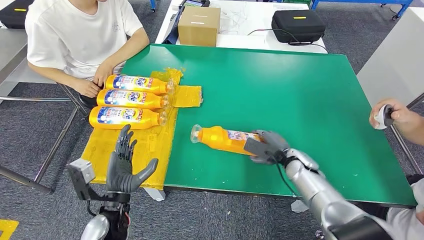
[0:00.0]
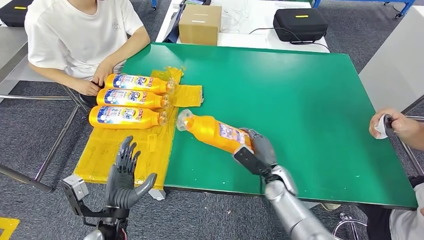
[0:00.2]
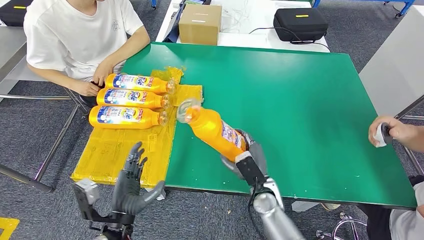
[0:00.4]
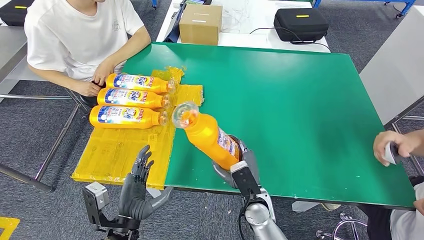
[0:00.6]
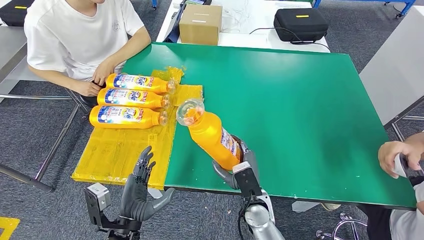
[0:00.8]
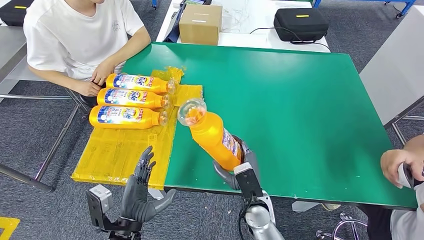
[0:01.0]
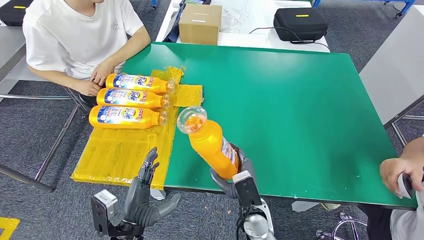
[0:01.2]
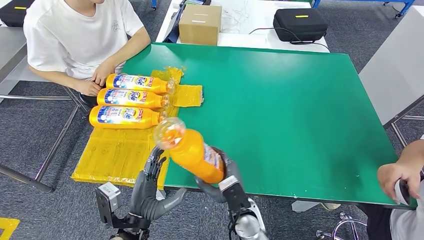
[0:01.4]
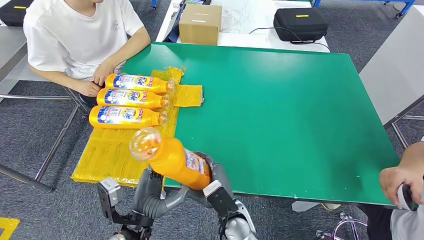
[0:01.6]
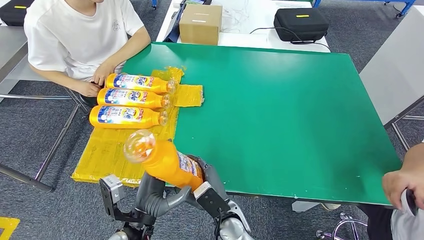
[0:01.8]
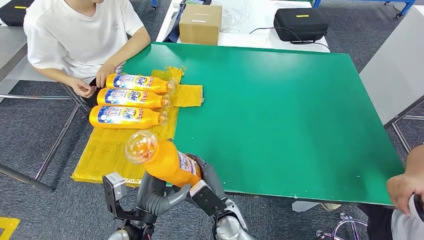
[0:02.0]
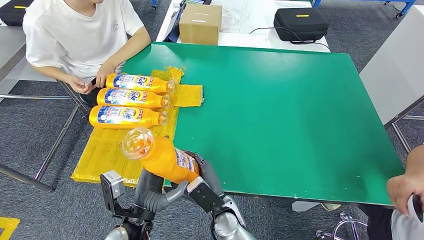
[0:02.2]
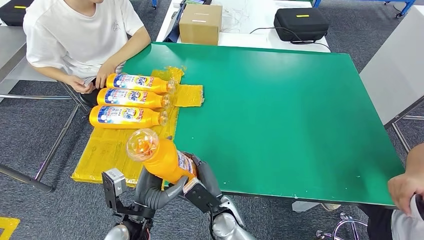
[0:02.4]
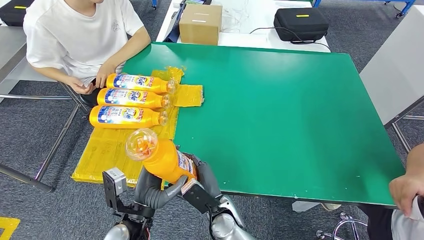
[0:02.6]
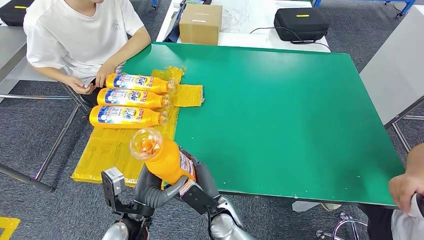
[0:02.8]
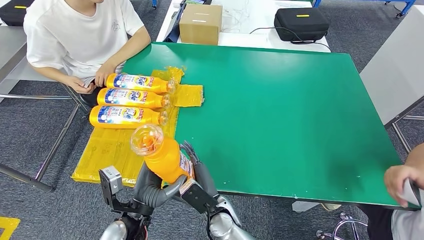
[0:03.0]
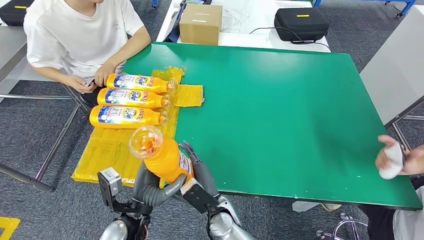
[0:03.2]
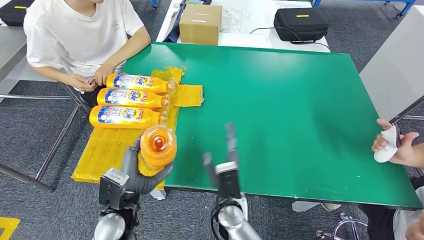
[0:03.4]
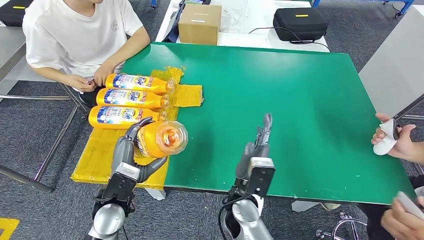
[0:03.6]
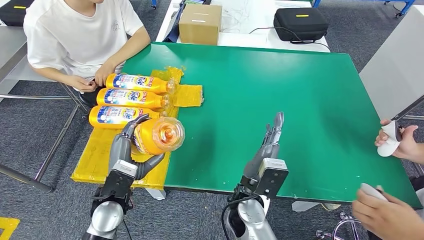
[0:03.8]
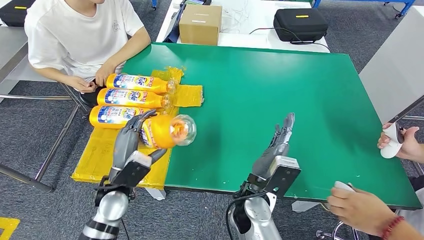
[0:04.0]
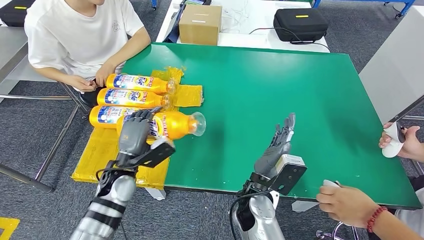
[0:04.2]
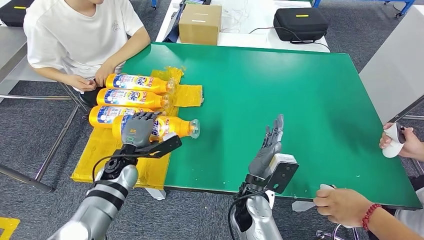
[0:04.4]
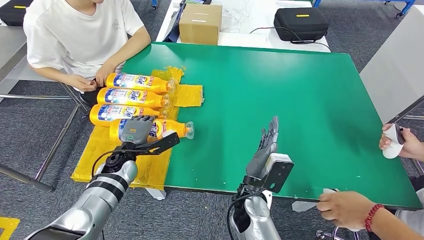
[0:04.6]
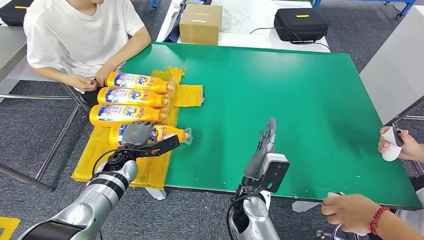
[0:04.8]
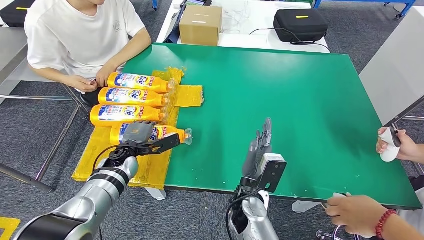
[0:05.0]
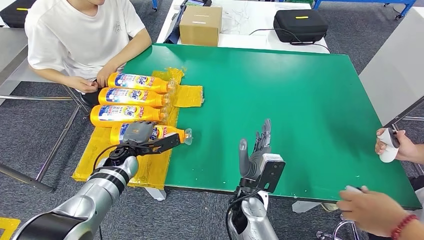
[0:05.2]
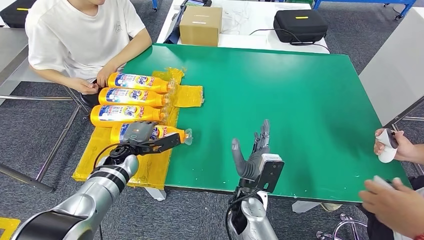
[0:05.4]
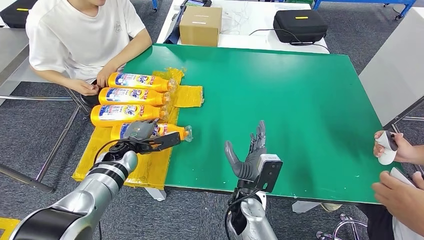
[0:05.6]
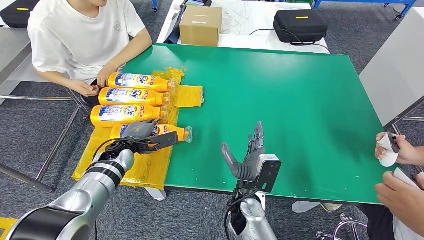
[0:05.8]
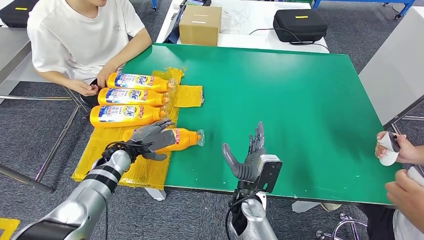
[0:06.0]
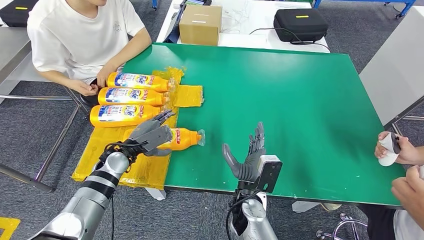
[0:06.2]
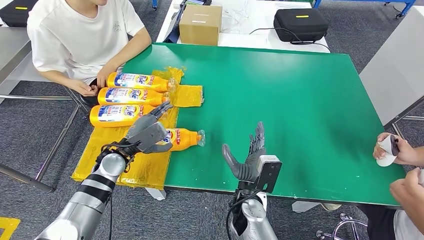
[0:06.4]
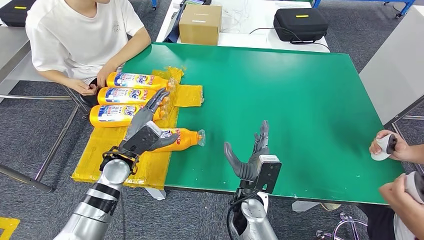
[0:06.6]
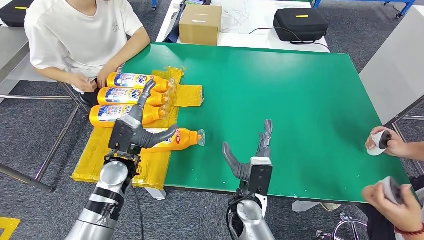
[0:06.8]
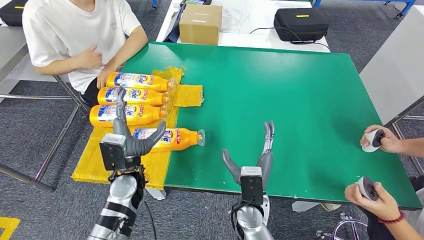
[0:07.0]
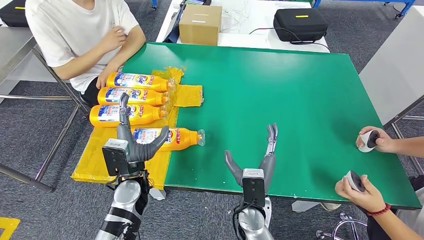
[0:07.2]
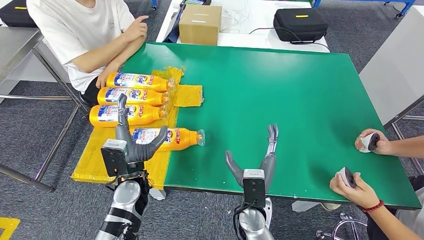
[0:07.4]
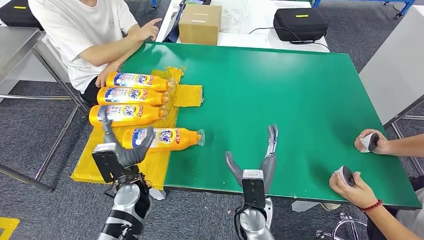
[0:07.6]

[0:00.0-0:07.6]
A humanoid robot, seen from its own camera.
Step, 0:01.4 to 0:07.4: Flip the bottle to face forward.
0:01.6 to 0:03.0: The hands stay close to where they were, moving slightly.
